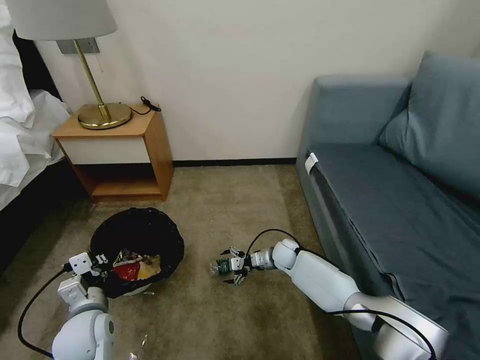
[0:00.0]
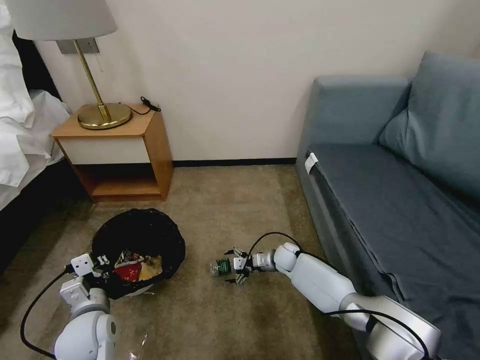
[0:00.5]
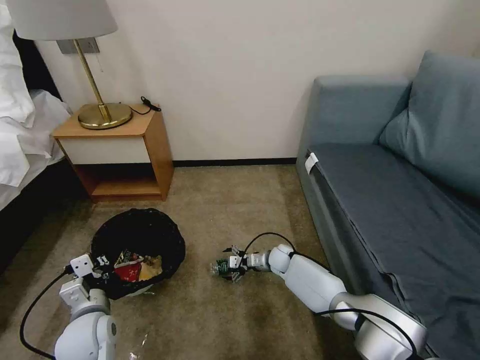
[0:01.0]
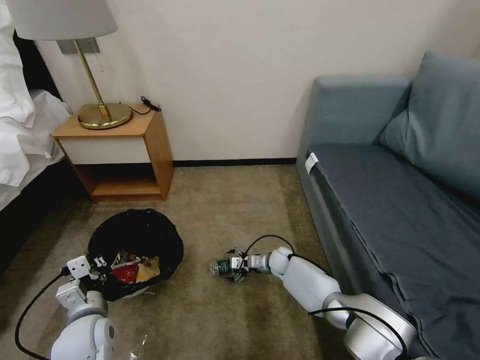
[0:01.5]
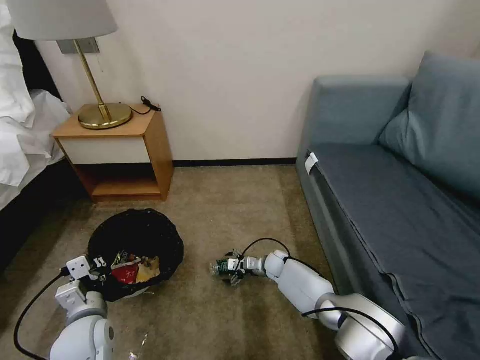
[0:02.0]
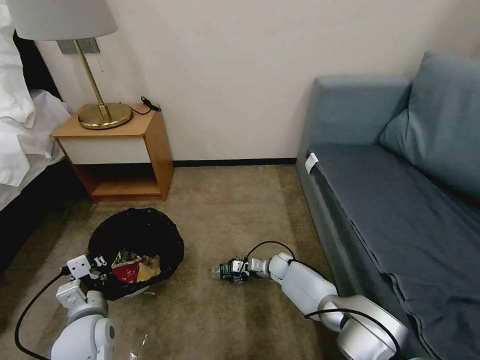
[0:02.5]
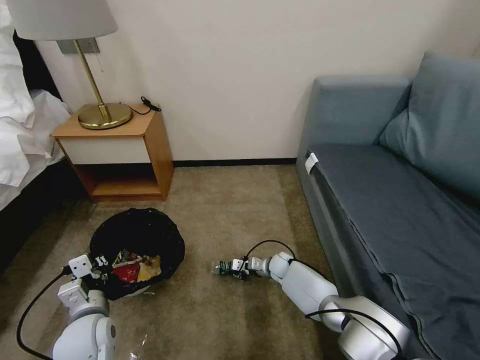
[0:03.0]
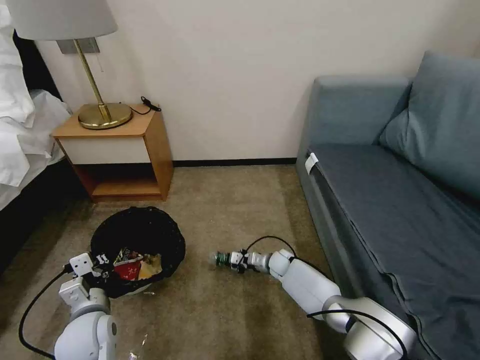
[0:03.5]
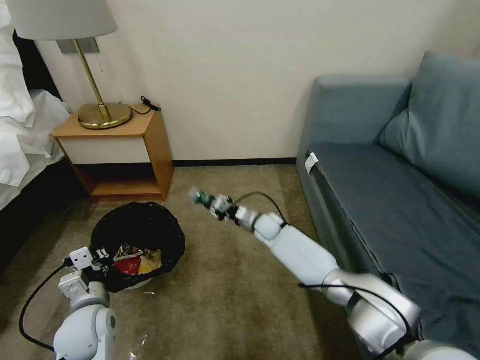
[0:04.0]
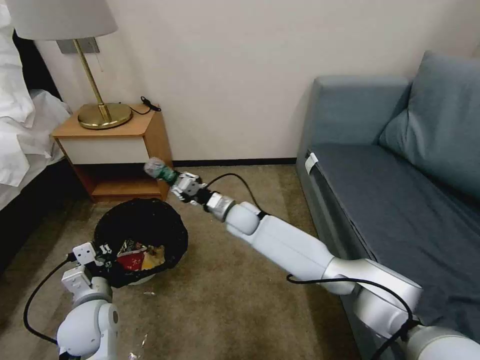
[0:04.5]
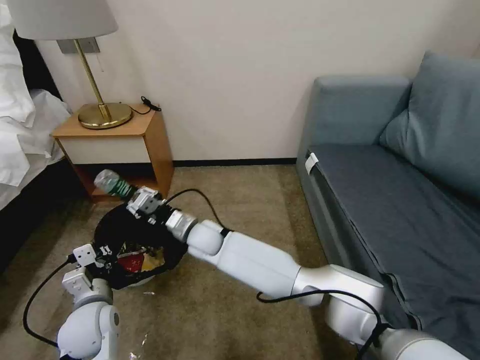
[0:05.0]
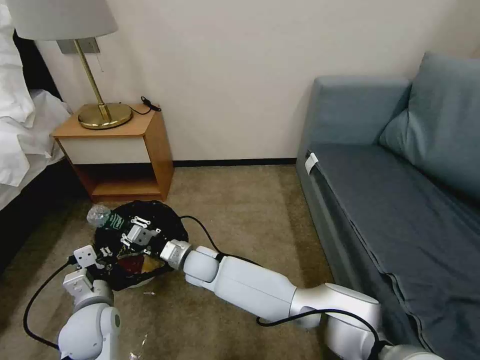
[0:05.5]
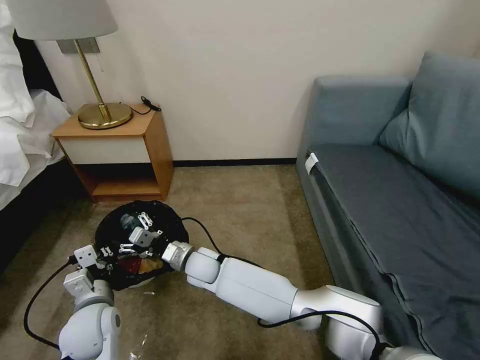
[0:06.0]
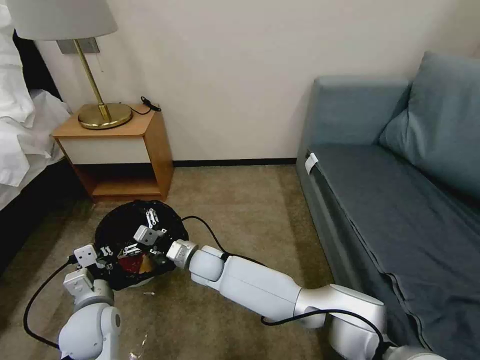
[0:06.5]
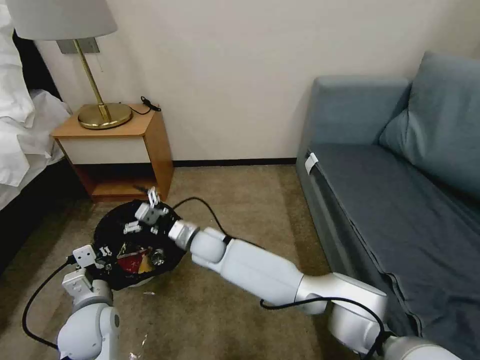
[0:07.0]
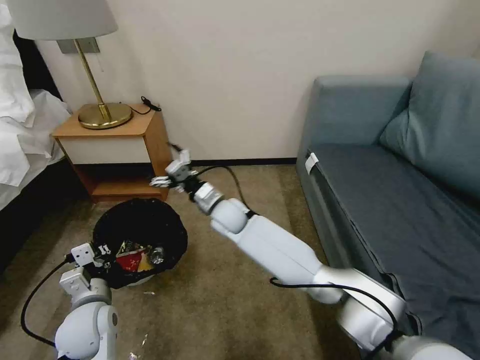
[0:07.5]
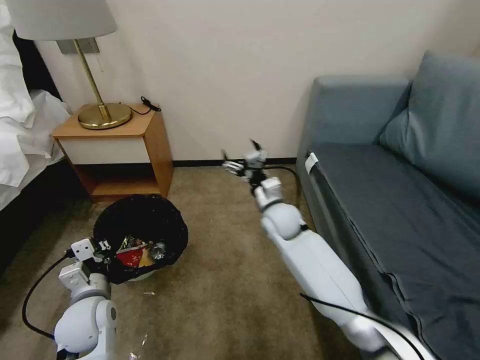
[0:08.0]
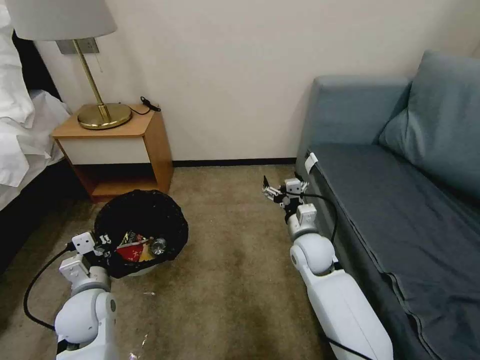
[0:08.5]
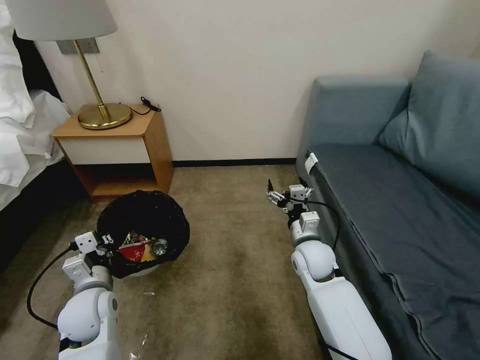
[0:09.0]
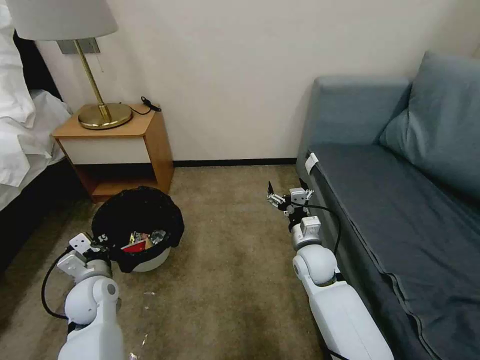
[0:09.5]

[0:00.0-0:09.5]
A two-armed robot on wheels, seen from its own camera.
Task of the whole recording: Pick up the trash bin, then pick up the garbage on the floor and place it into the trash bin.
0:00.0 to 0:02.0: The right gripper travels downward by about 5 cm.
0:02.0 to 0:04.0: The right gripper travels upward and forward by approximately 10 cm, and closes up.
0:04.0 to 0:05.5: The right gripper is displaced to the left and backward by about 25 cm.
0:05.5 to 0:07.5: The right gripper heads upward, forward and to the right, covering about 15 cm, and opens up.
0:07.5 to 0:09.5: The left gripper is displaced forward by approximately 5 cm. Meanwhile the right gripper heads to the right and backward, covering roughly 25 cm.

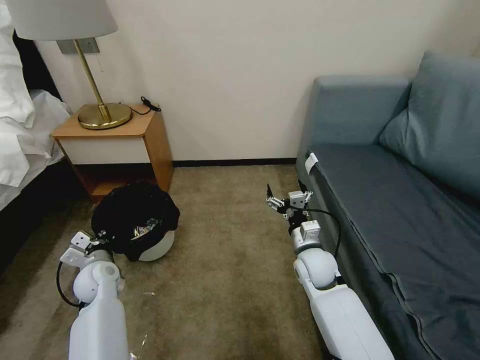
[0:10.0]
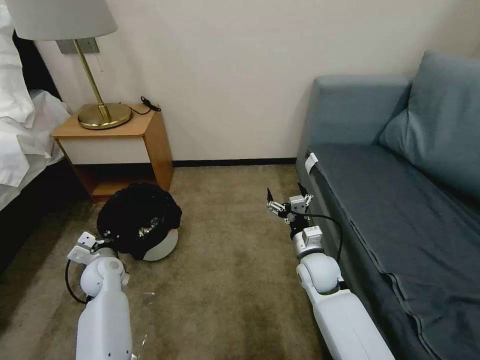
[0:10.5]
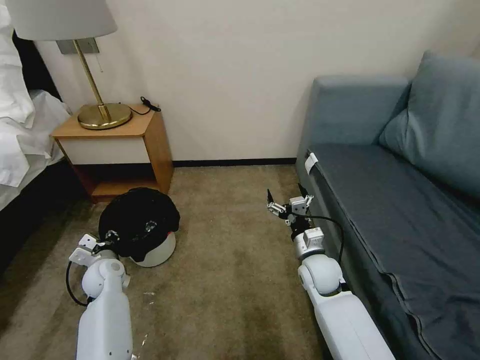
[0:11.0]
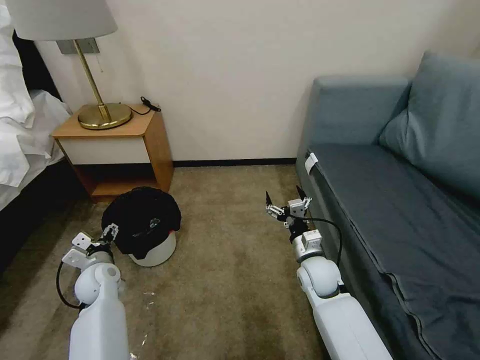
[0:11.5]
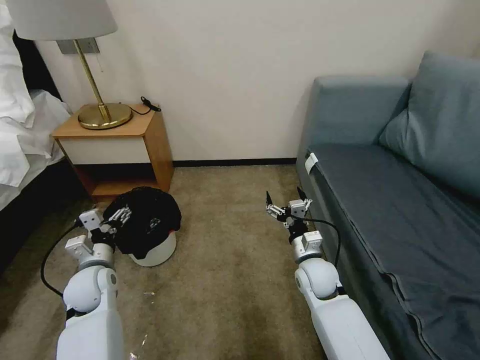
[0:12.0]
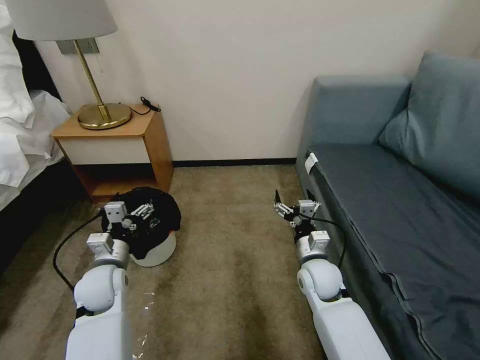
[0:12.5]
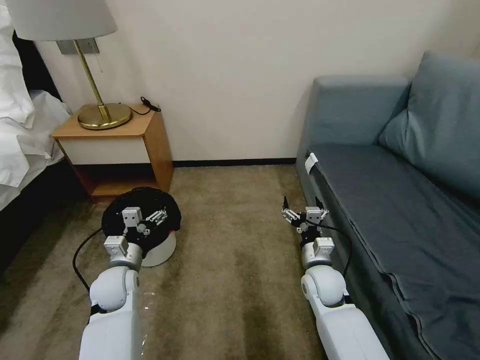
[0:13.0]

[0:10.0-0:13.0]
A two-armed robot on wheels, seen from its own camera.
Task of the whole recording: Pick up the trash bin, then pick up the garbage on the floor and place it into the trash bin.
0:10.0 to 0:11.5: The left gripper opens its fingers.
0:11.5 to 0:13.0: The left gripper travels to the right by some 5 cm.
